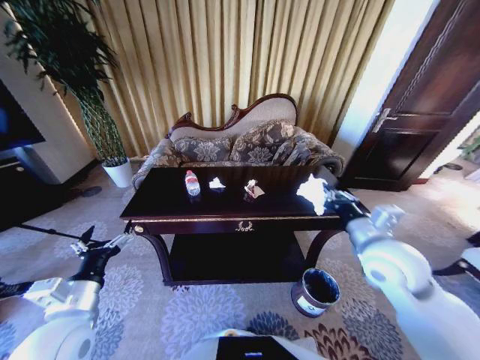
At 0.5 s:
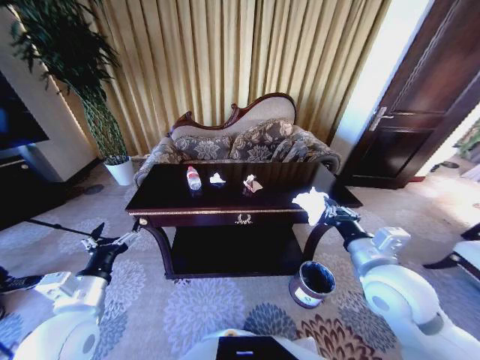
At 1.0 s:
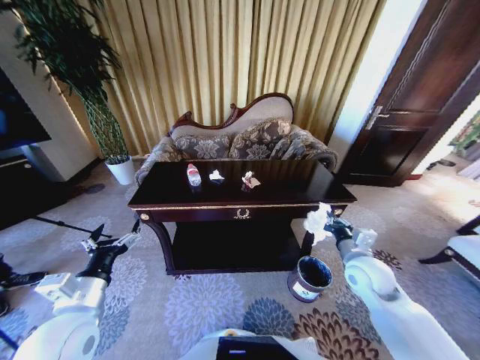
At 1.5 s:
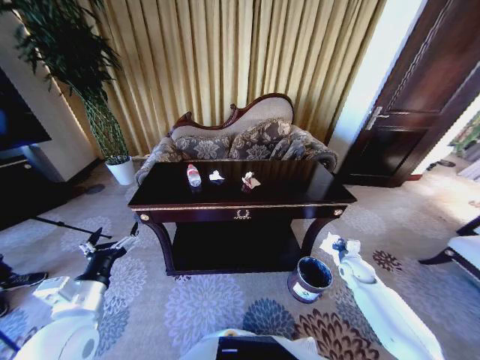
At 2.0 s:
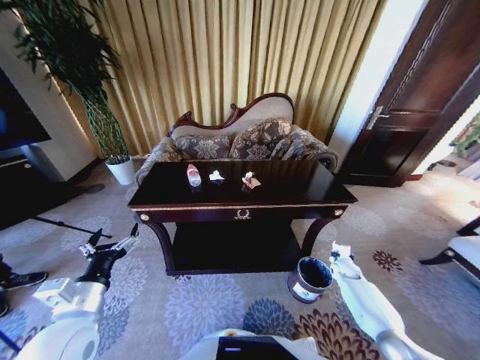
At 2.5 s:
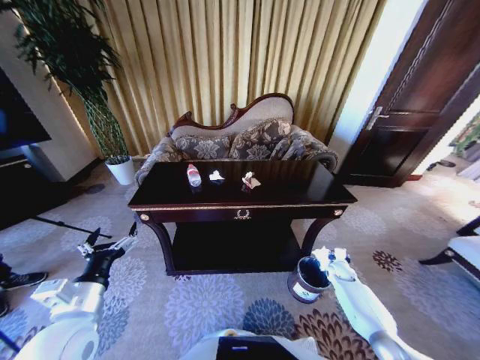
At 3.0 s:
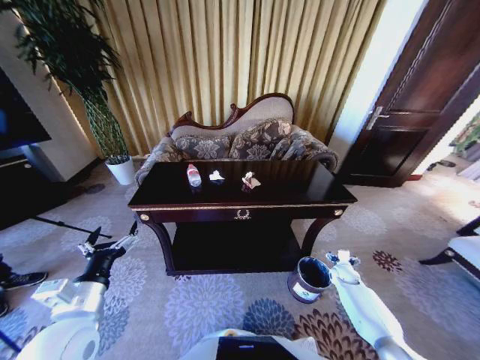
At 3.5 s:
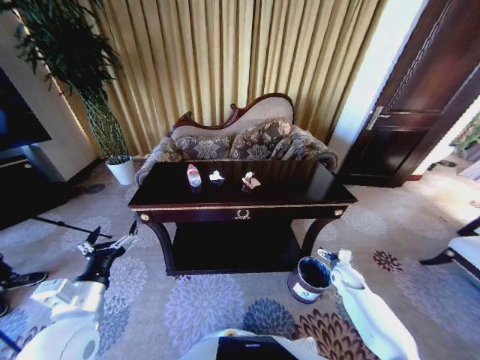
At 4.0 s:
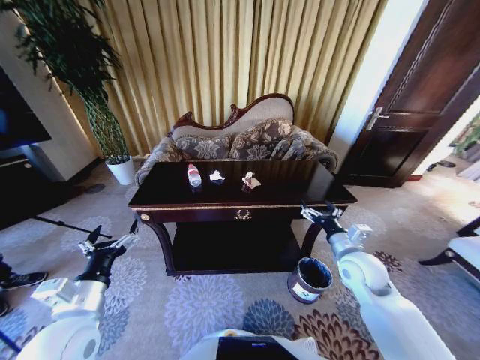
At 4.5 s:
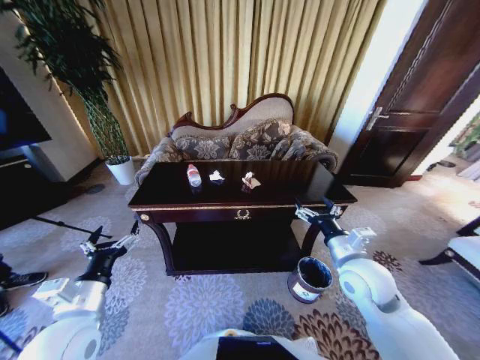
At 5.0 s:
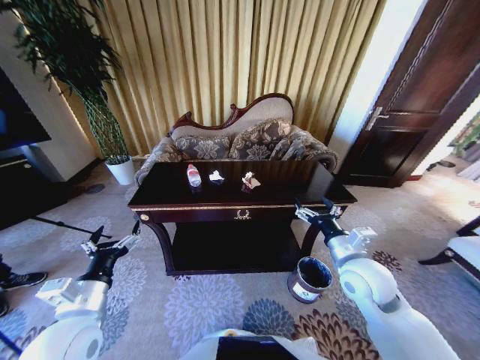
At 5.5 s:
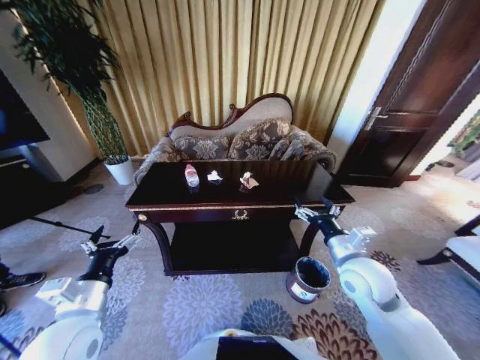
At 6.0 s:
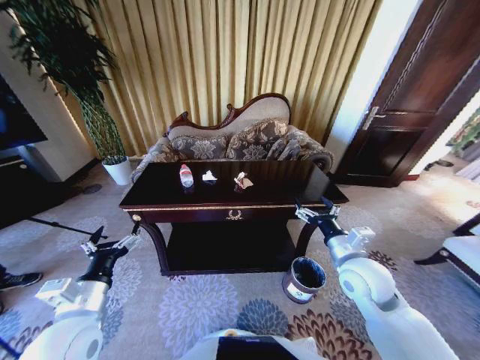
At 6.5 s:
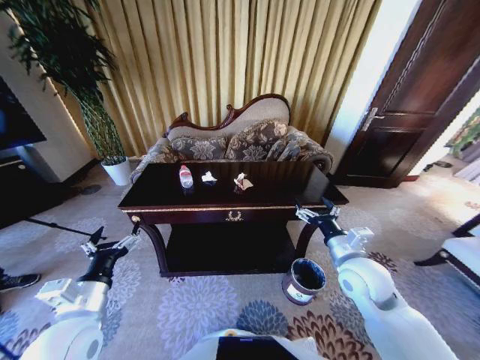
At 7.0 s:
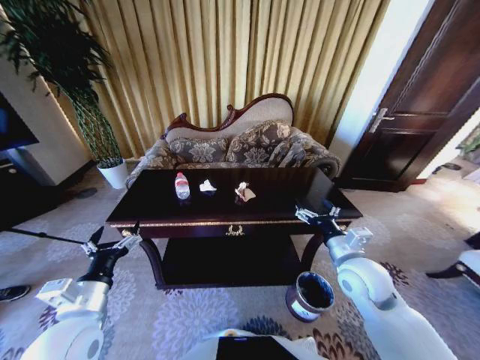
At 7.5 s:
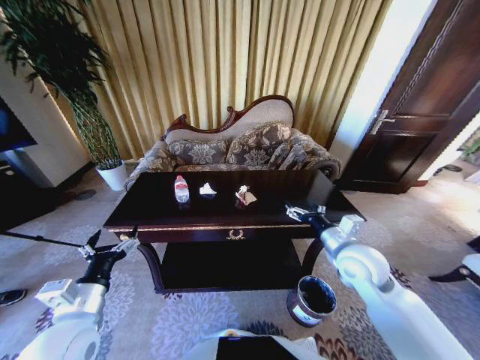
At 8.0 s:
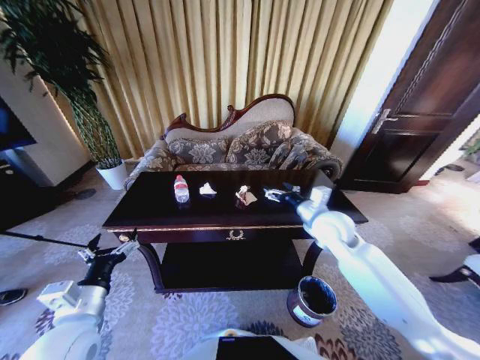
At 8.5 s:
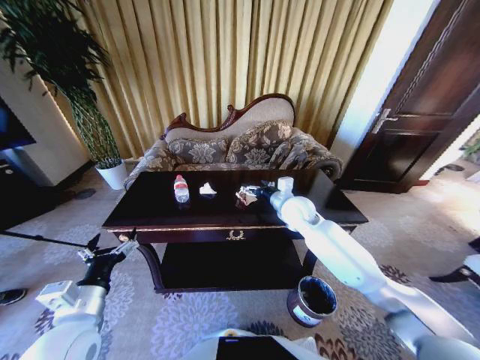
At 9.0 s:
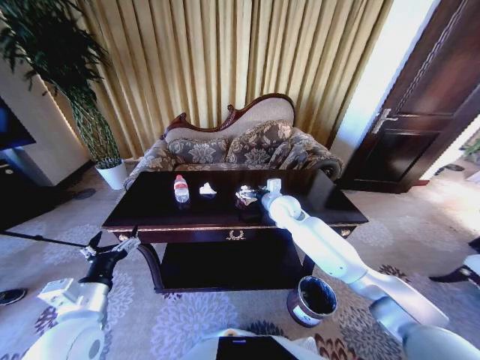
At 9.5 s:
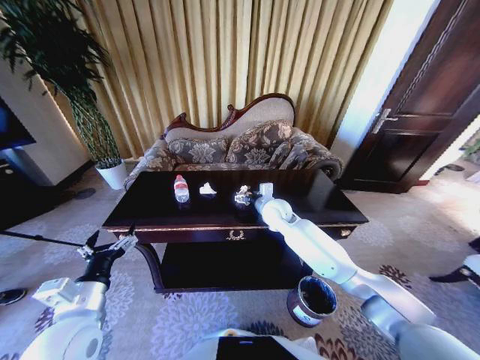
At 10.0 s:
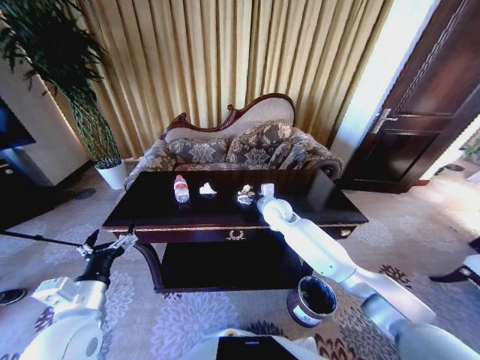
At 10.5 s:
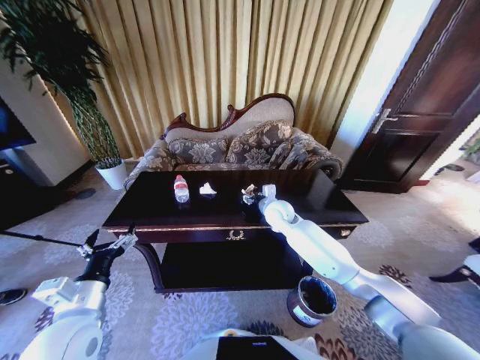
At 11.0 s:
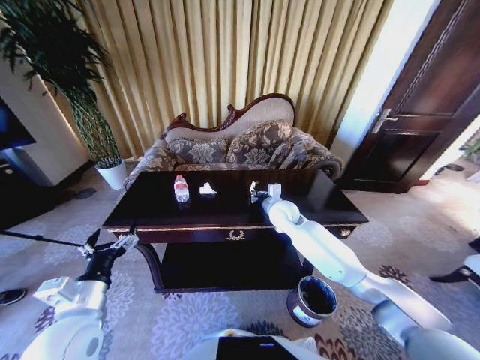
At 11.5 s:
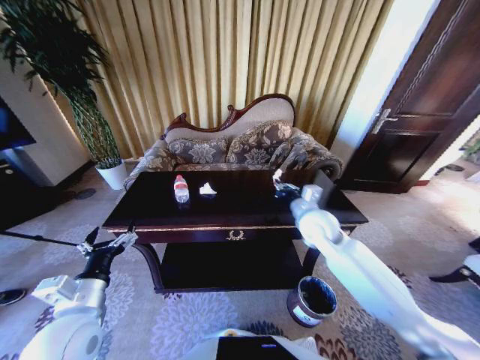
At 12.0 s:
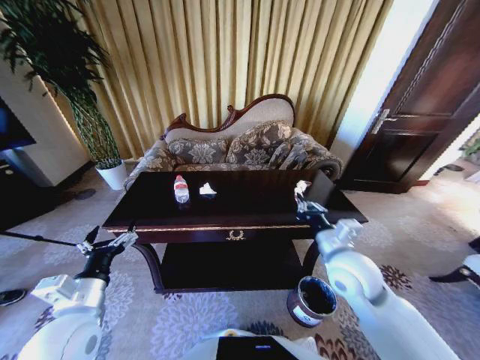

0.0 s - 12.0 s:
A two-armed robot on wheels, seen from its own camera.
Task of the whole recording: Move to the front of the table and place the trash on the table into the trash bin.
0.0 s - 2.0 s: The right gripper moves downward and to the right, approximately 40 cm.
2.0 s - 4.0 s: The right gripper travels upward and to the left by approximately 25 cm, and opens up.
4.0 s - 6.0 s: The right gripper moves approximately 5 cm.
6.0 s - 8.0 s: The right gripper goes roughly 10 cm forward.
8.0 s - 10.0 s: The right gripper heads forward, to the left and downward, covering about 15 cm.
10.0 s - 12.0 s: The right gripper goes roughly 25 cm backward and to the right, and closes.

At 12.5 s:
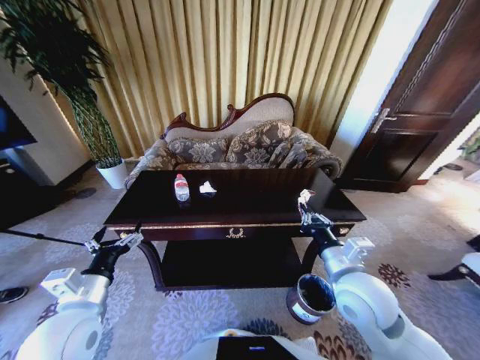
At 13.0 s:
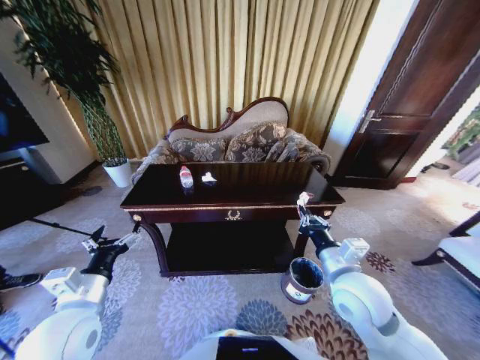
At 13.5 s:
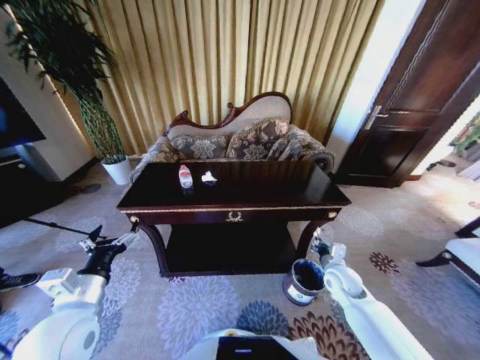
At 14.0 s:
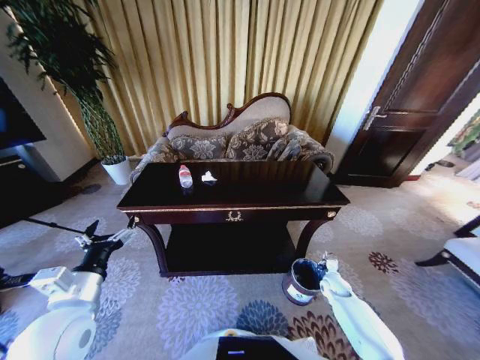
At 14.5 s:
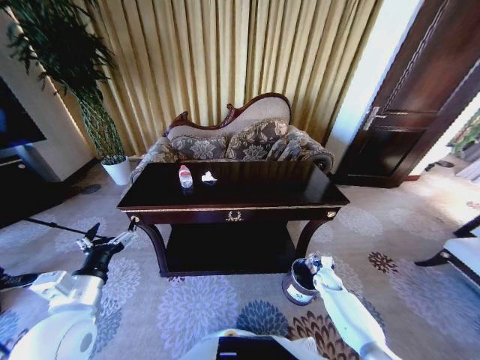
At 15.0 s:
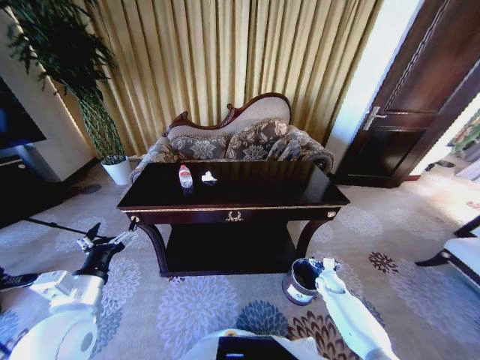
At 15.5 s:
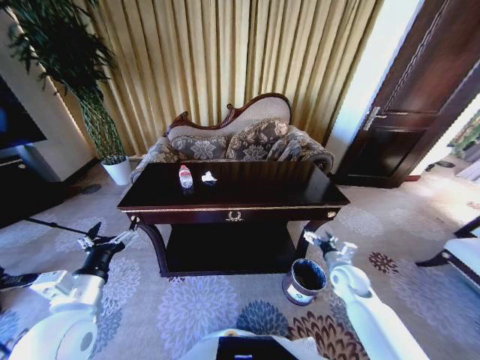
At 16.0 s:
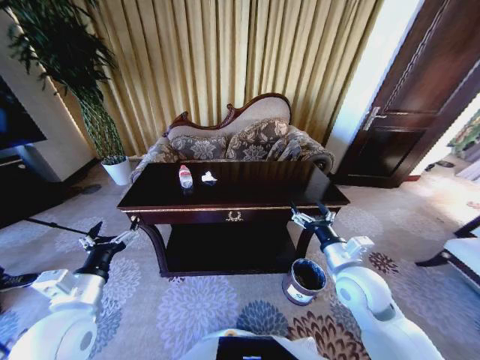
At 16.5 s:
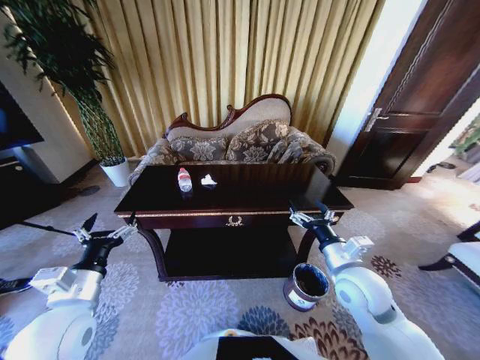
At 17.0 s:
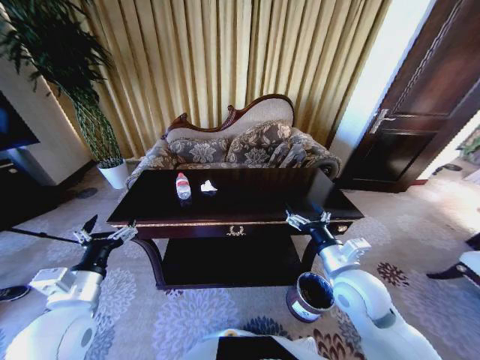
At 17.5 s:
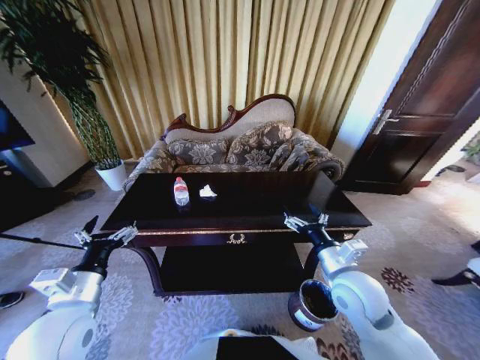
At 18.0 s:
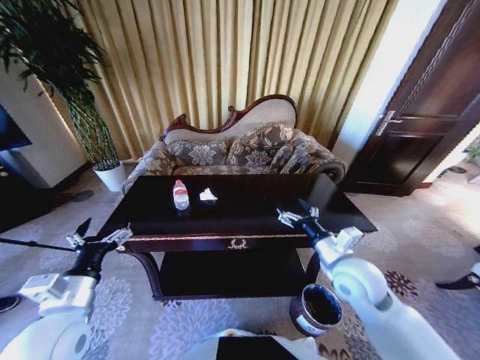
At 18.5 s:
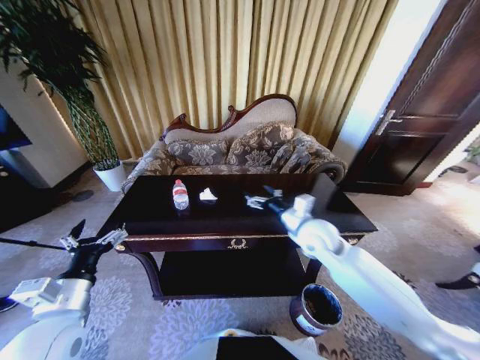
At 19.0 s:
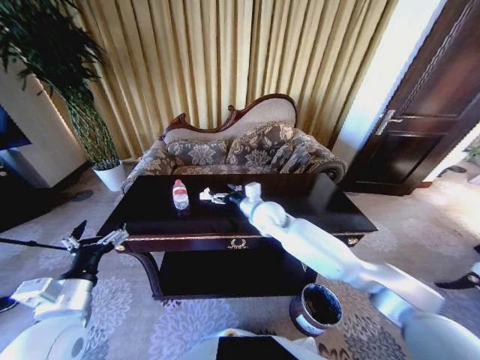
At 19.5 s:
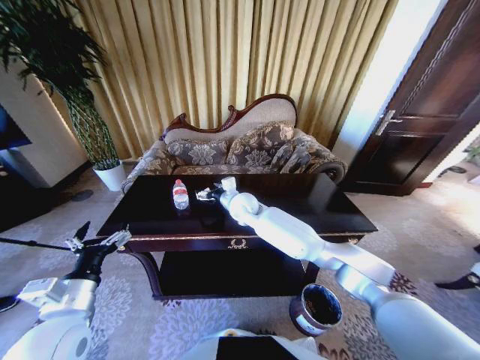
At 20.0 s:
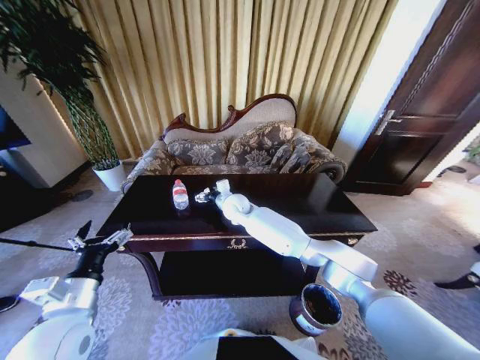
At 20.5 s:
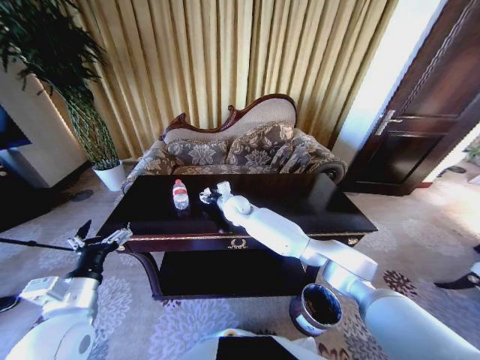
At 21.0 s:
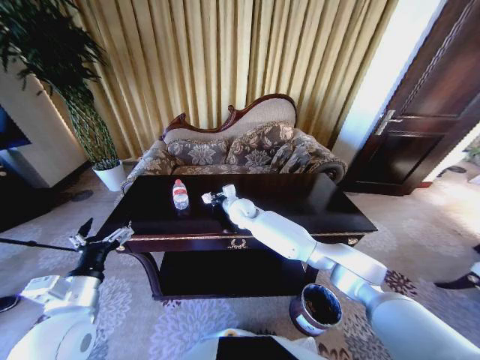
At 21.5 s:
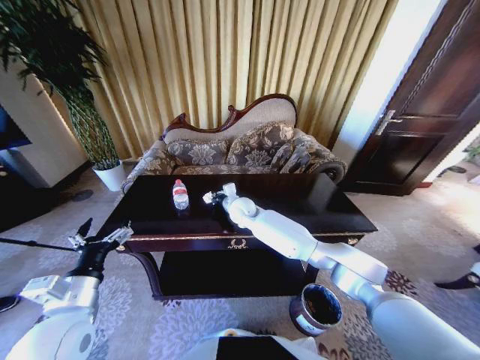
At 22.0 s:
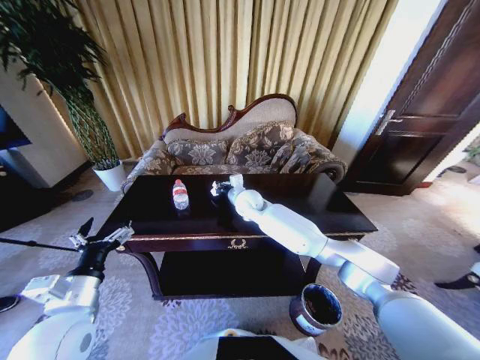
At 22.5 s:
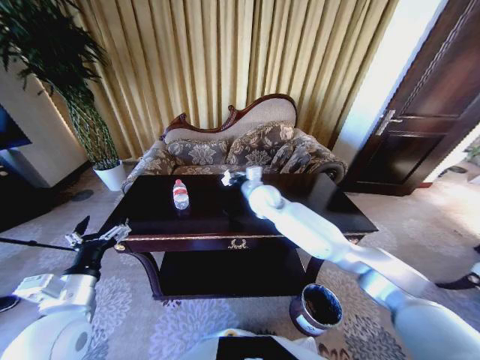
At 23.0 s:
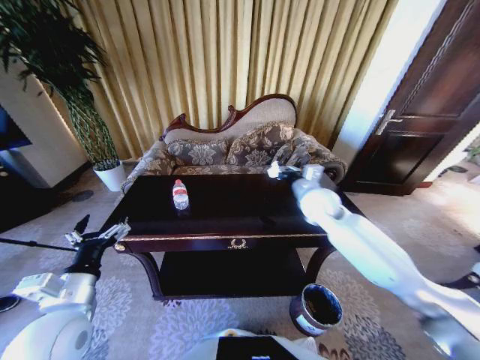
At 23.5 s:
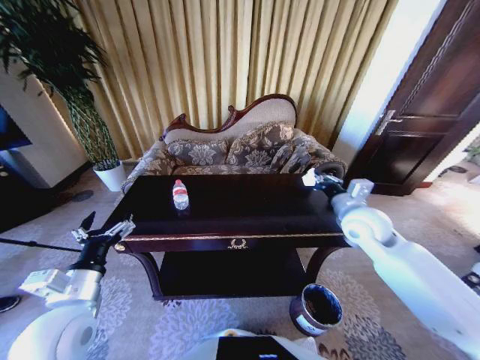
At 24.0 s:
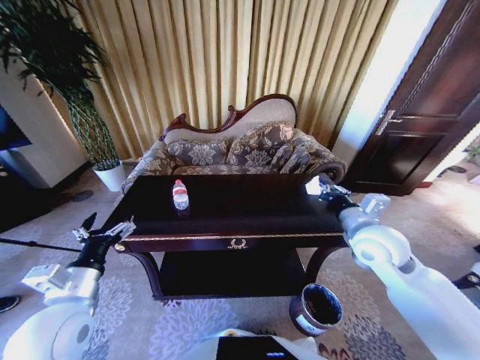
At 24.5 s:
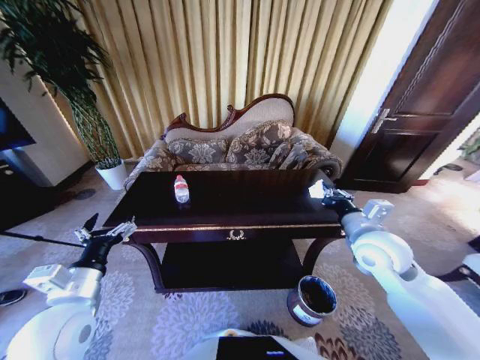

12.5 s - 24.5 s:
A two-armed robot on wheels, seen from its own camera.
Task of the whole recording: Move to the front of the table and place the trash on the table into the trash bin.
12.5 s - 14.5 s: The right gripper travels downward and to the right by roughly 40 cm, and opens up.
14.5 s - 16.5 s: The right gripper is displaced upward by approximately 30 cm, and opens its fingers.
16.5 s - 18.5 s: The right gripper travels forward and to the left by approximately 15 cm.
18.5 s - 20.5 s: The right gripper travels to the left and forward by about 25 cm, and closes up.
20.5 s - 22.5 s: The right gripper is displaced to the right and upward by about 10 cm, and closes up.
22.5 s - 24.5 s: The right gripper shifts roughly 30 cm to the right and backward.

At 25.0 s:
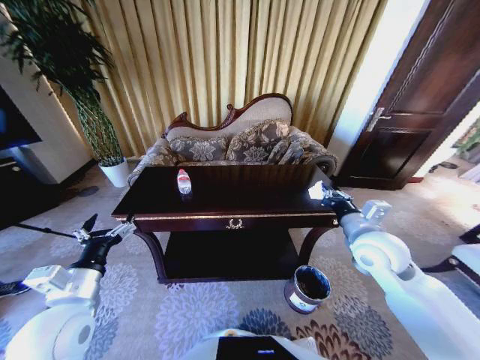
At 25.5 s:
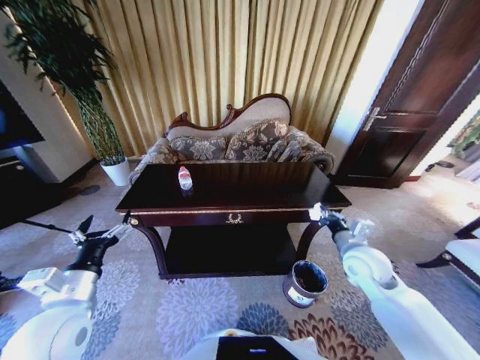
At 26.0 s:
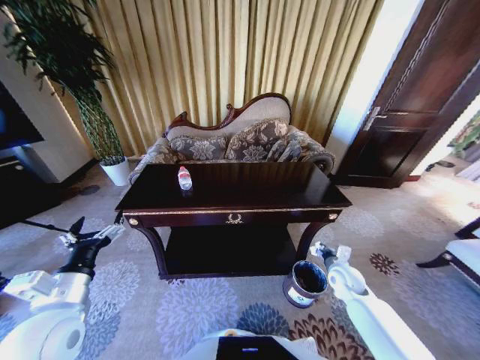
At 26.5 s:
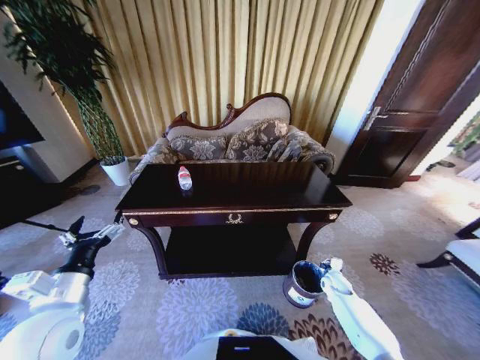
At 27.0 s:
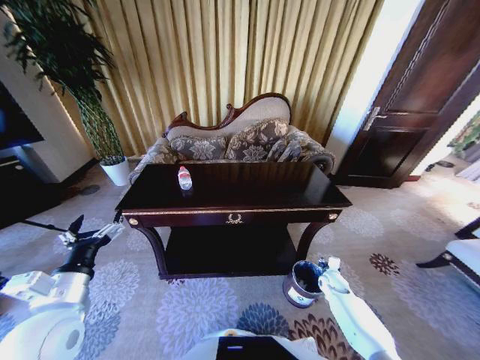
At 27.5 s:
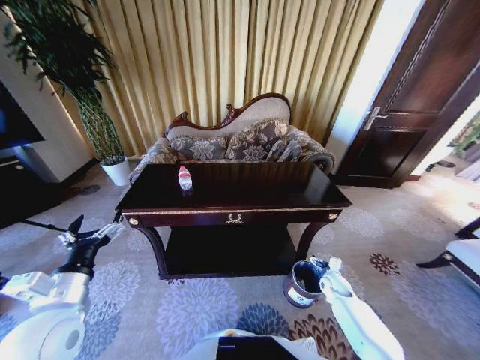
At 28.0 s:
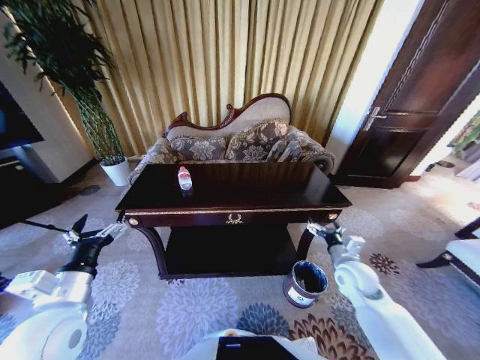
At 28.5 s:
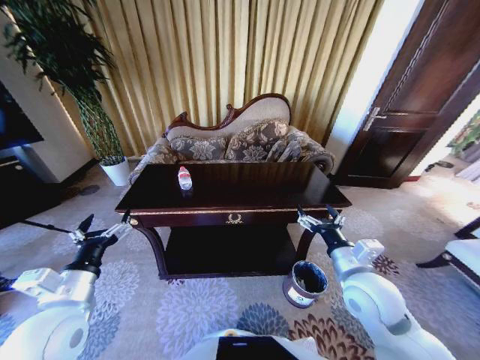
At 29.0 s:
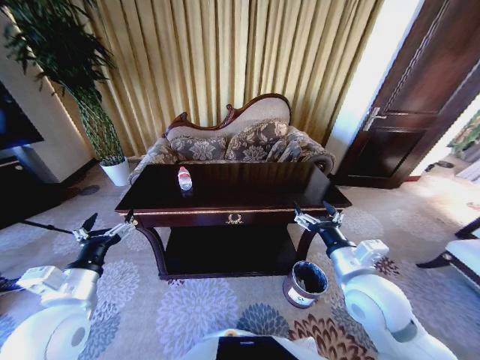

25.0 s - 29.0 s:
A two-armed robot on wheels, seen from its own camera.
Task of the whole recording: Move to the front of the table and place the trash on the table into the trash bin.
25.0 s - 27.0 s: The right gripper shifts roughly 35 cm downward, and opens its fingers.
27.0 s - 29.0 s: The right gripper moves upward and to the left, some 35 cm, and opens its fingers.
